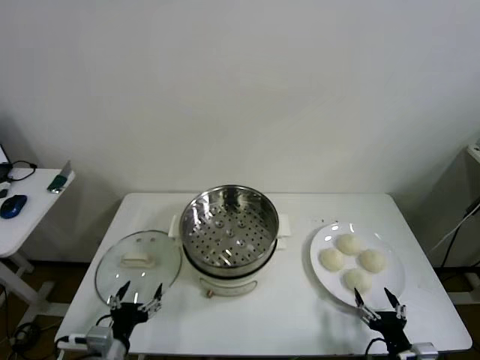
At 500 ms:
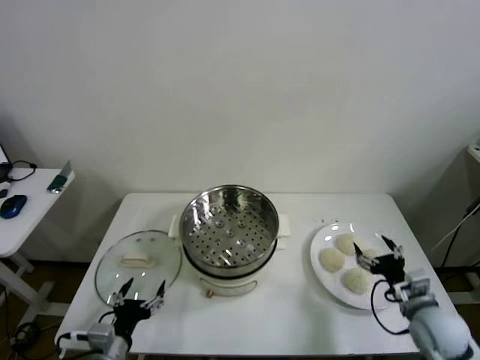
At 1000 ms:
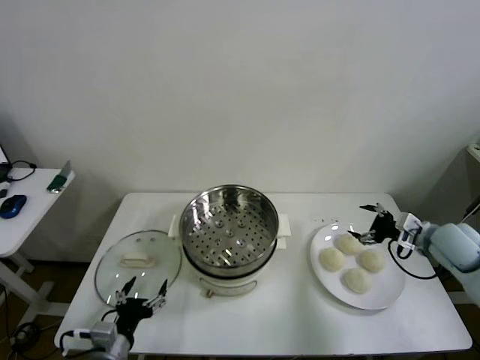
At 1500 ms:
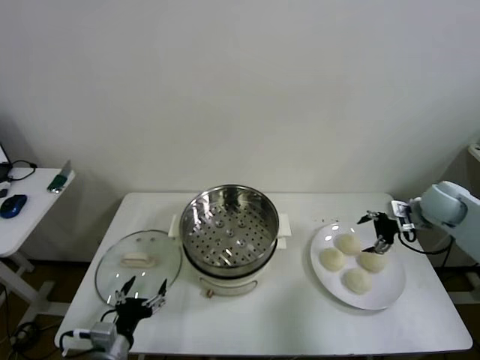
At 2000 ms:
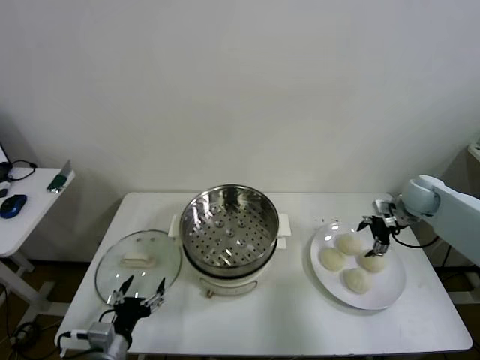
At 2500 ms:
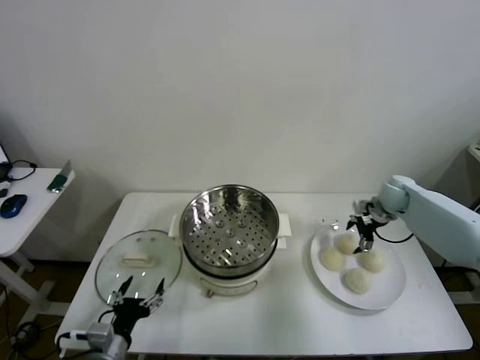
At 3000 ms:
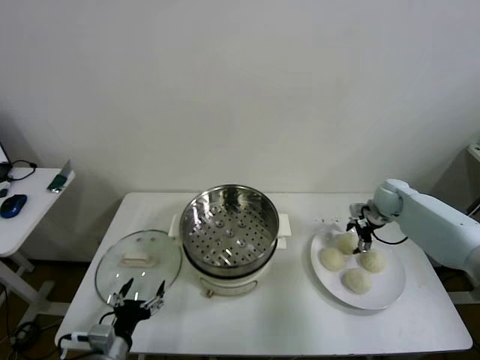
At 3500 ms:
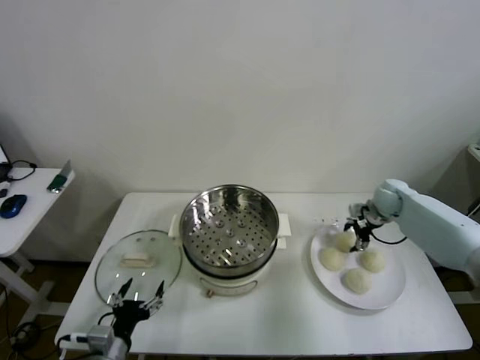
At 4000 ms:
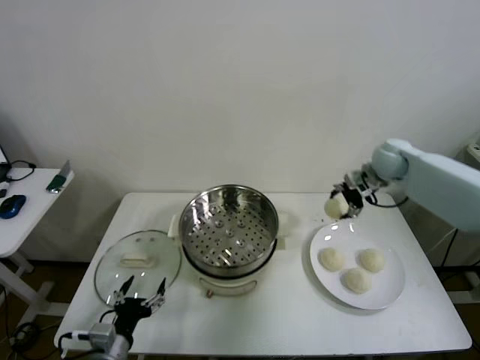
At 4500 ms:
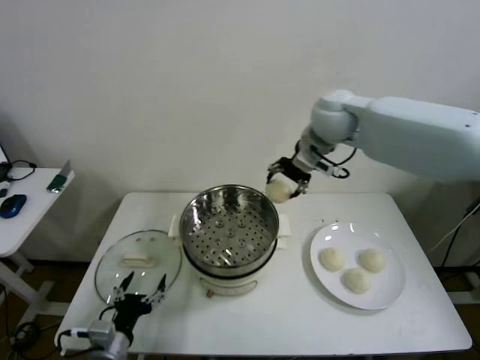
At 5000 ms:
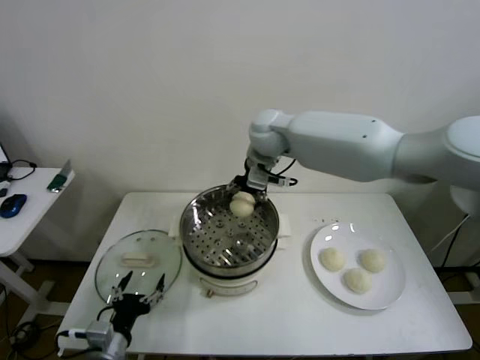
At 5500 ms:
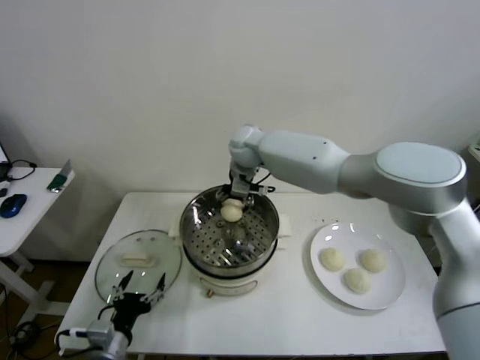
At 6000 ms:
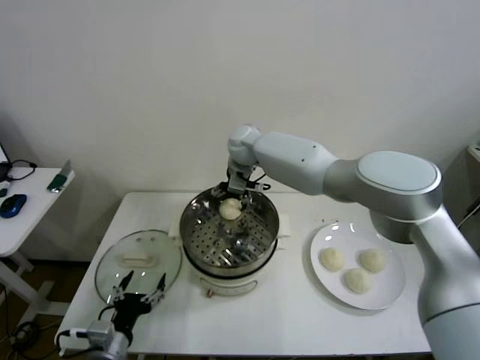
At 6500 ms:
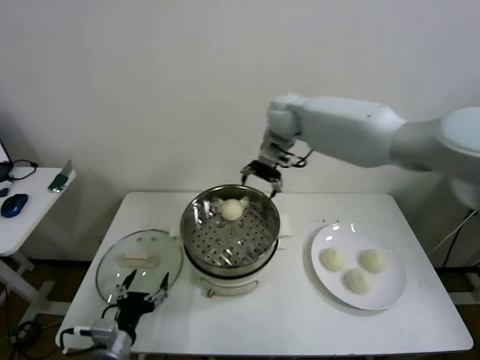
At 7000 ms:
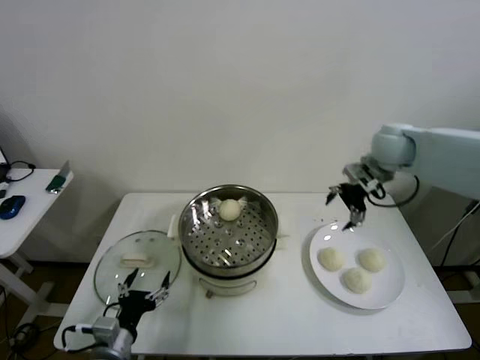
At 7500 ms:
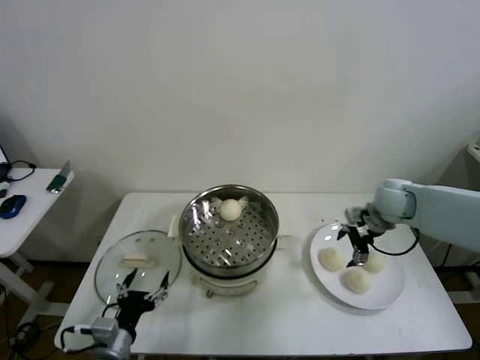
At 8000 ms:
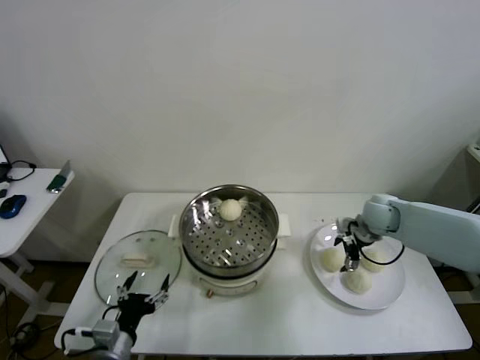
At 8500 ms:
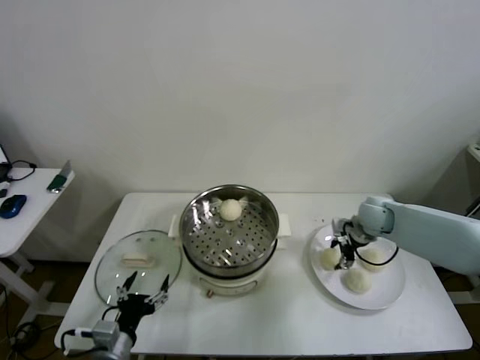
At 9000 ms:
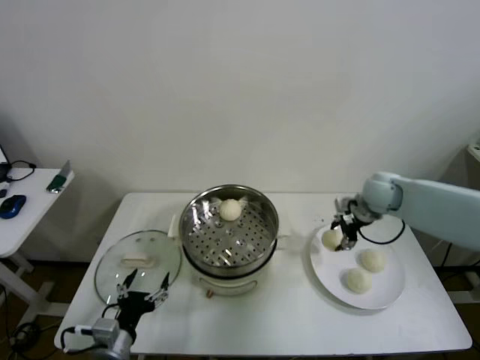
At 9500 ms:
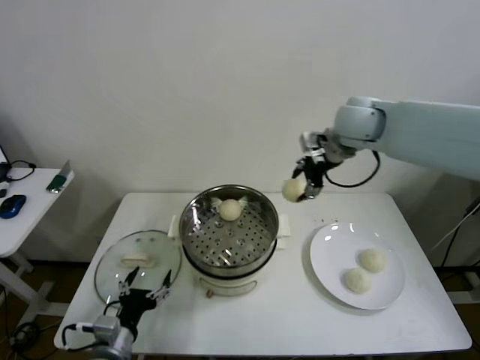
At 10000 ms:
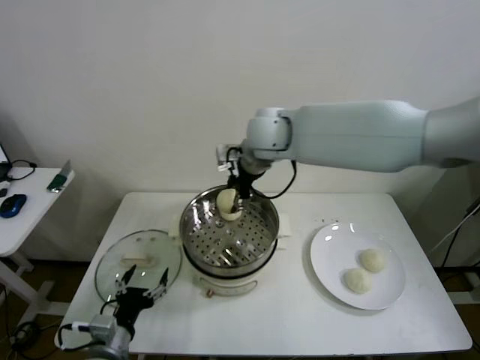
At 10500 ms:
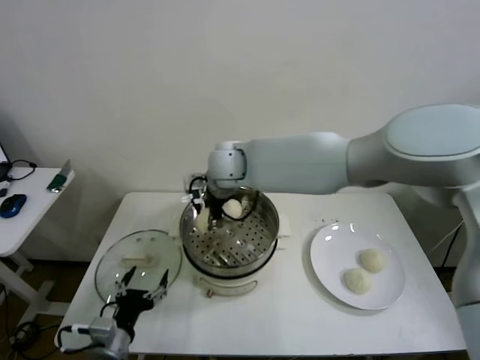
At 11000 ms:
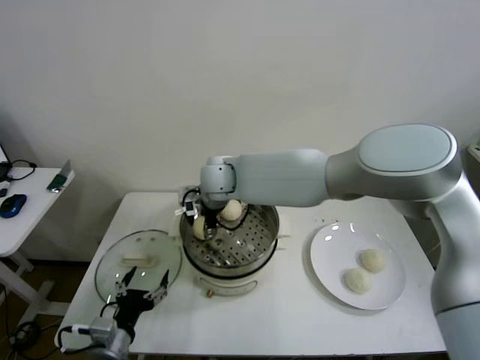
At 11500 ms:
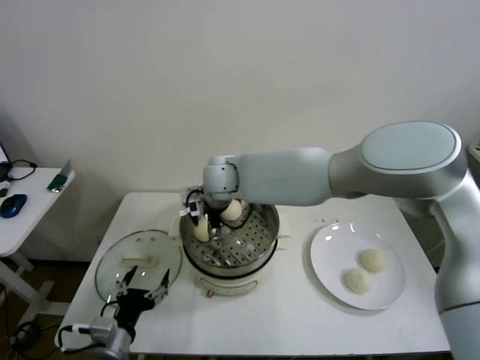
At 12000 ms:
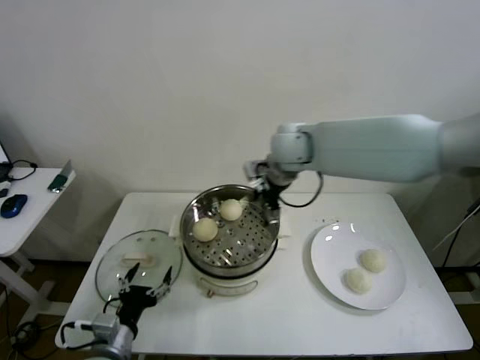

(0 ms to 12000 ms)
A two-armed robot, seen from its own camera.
Step, 0 ms - 3000 ms: Grasp the baozi in the plate with right gripper.
Step, 3500 ms - 6000 ms: Place the baozi on the steamer with right gripper.
Step, 6500 ms - 8000 ms: Grasp the baozi in the plate with right gripper.
Step, 8500 ms - 11500 ms: Place the baozi on the steamer with right gripper.
2000 ms - 4000 ms: The right gripper moves upward, to the left and forward, about 15 cm, and closes up.
4000 ms - 6000 ms: The right gripper shifts some 35 cm to the left, and opens up.
6000 ms - 8000 ms: The right gripper moves to the right, some 35 cm.
8000 ms - 10000 ms: The right gripper goes approximately 40 cm to the left and upward, and closes its fingers.
10000 ms - 12000 ms: The right gripper shifts approximately 5 cm to the right, and opens its fingers.

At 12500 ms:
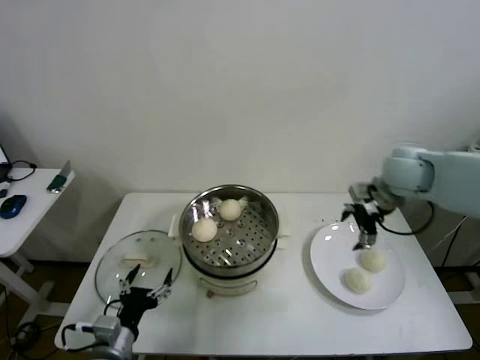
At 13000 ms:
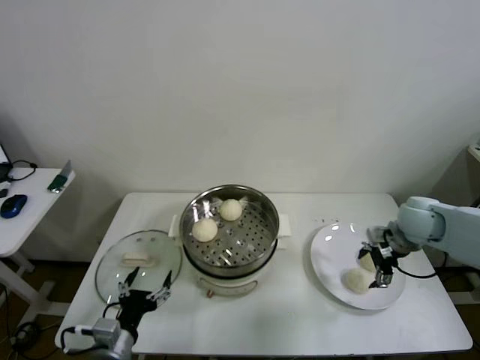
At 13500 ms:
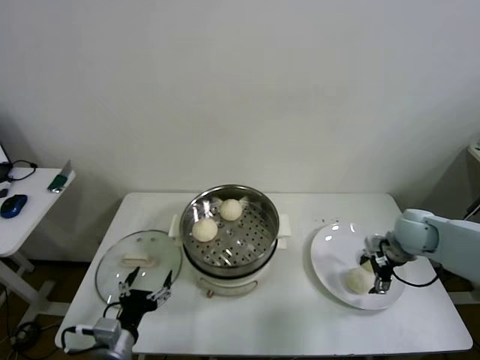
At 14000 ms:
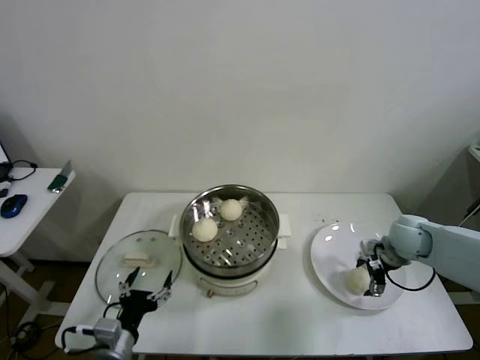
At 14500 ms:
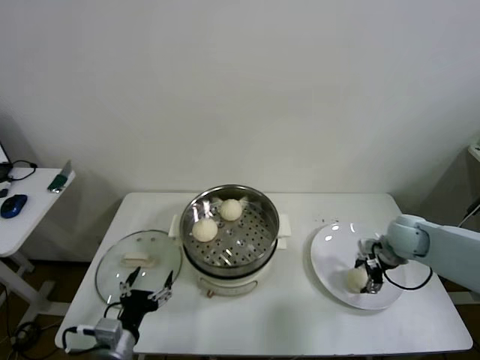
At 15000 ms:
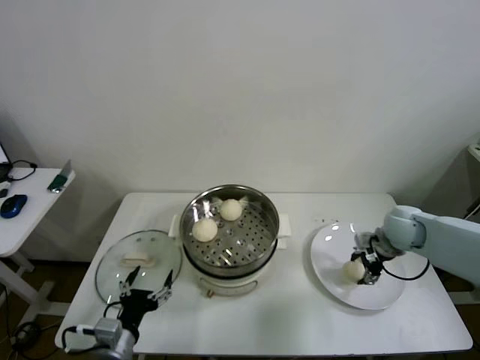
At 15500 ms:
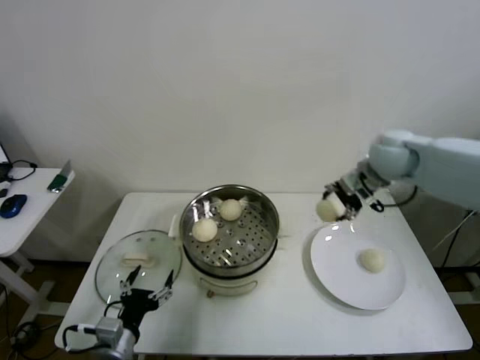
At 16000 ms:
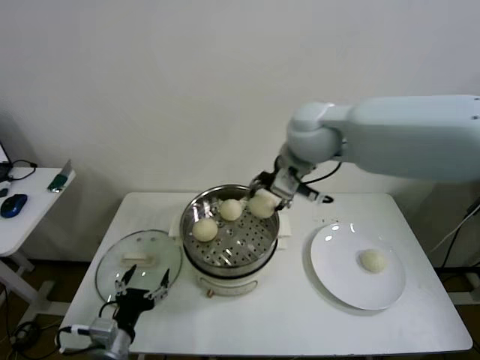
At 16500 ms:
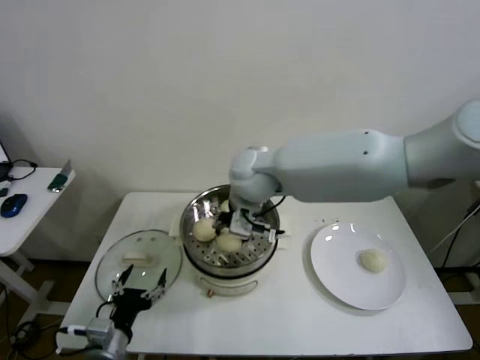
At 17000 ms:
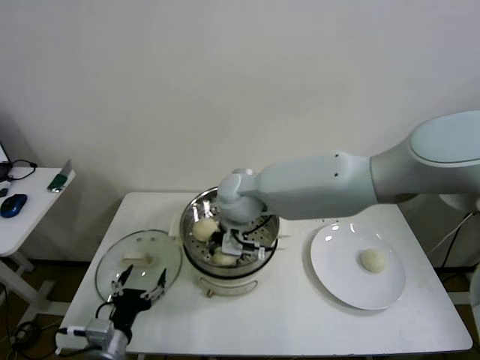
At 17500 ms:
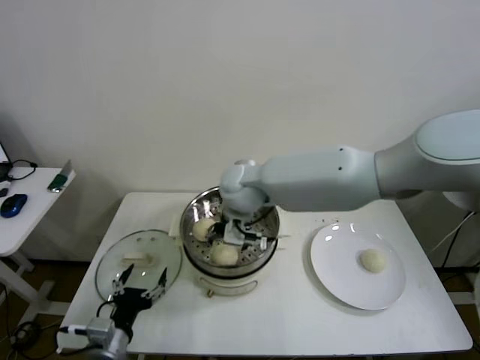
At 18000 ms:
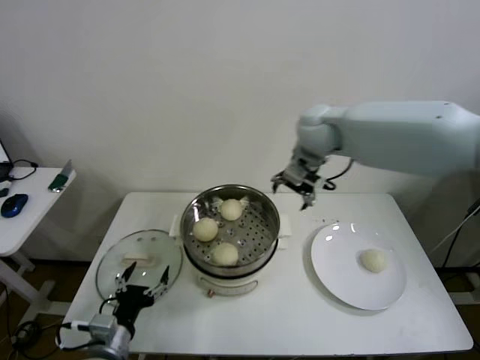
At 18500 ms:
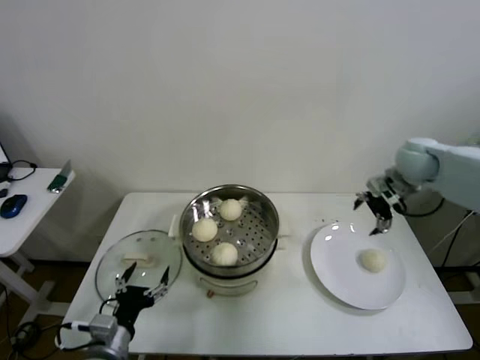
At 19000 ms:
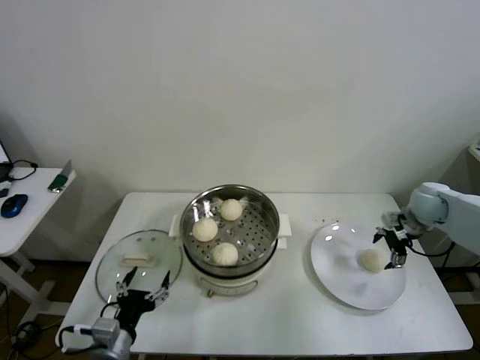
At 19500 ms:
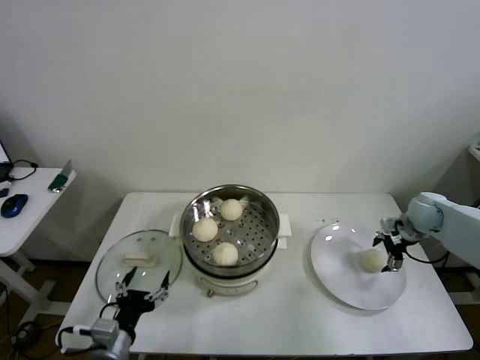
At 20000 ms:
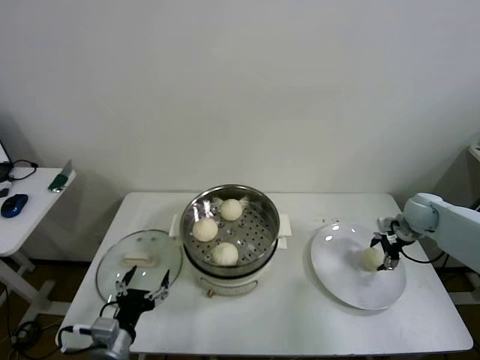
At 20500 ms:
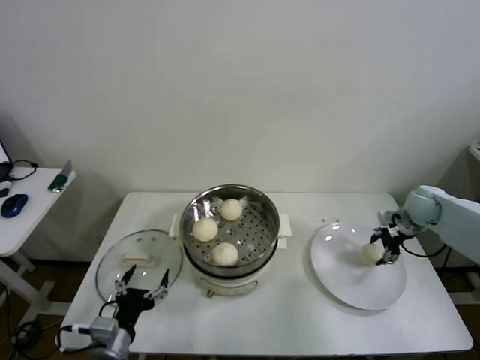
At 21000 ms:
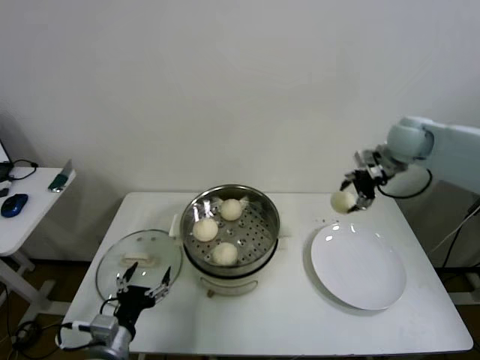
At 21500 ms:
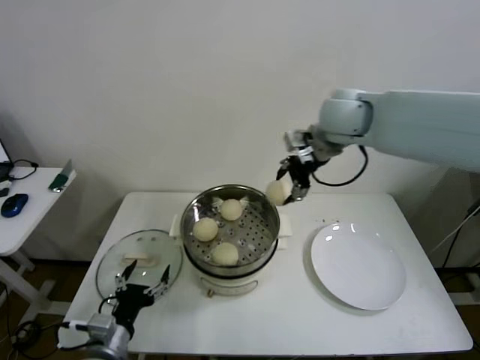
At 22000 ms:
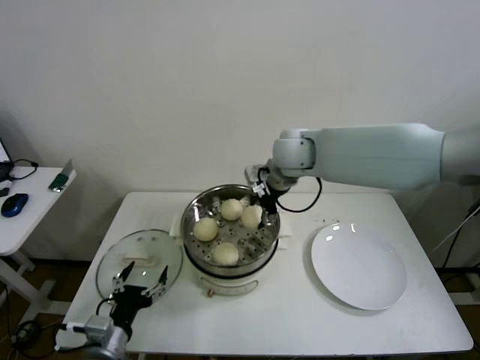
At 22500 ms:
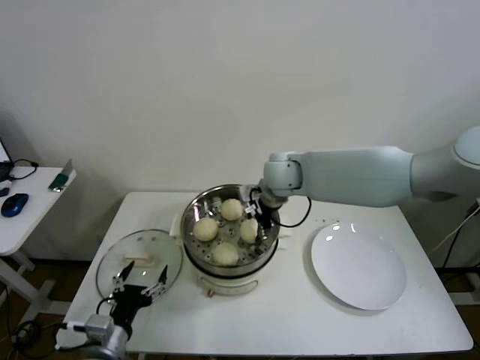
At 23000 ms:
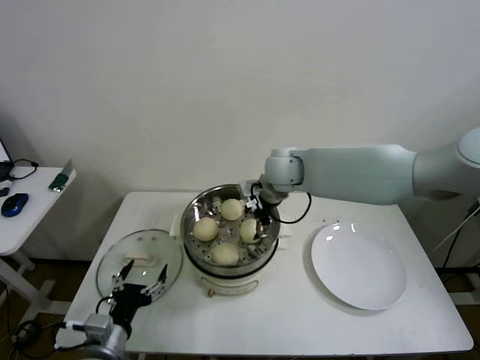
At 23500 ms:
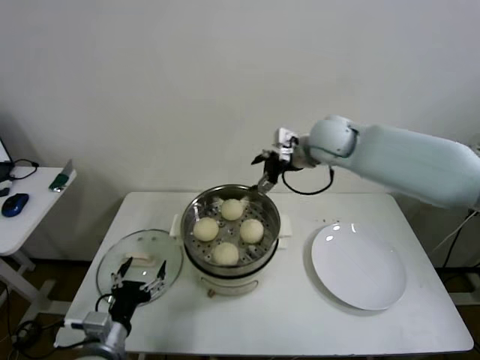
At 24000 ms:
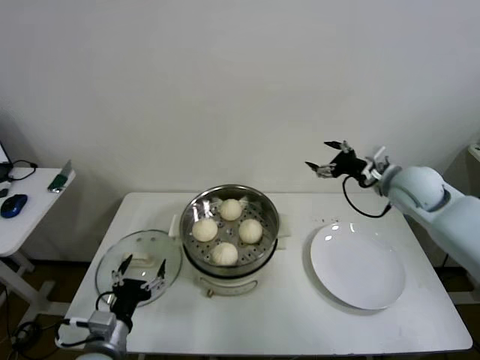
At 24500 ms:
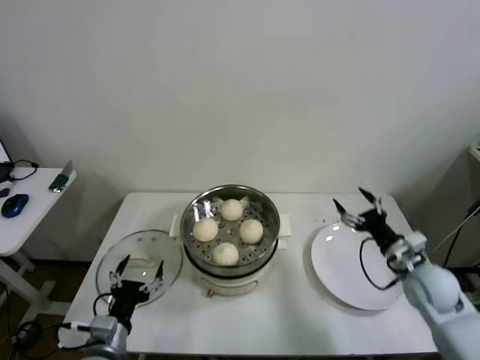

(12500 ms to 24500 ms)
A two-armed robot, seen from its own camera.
Step, 12500 ms - 14500 ms: Grasp the baozi in the plate with right gripper.
Step, 15000 ms - 17500 ms: Place the baozi on the steamer with right gripper.
Step, 18000 ms - 20000 ms: Grasp the baozi in the plate with right gripper.
Step, 20500 ms - 22500 ms: Place the baozi on the steamer with right gripper.
12500 ms - 14500 ms: The right gripper goes some 15 cm downward, and closes up.
14500 ms - 16500 ms: The right gripper goes approximately 40 cm to the left and upward.
16500 ms - 18500 ms: The right gripper heads to the right, covering about 35 cm, and opens up.
18500 ms - 20500 ms: The right gripper moves downward and to the right, some 15 cm, and closes its fingers.
20500 ms - 22500 ms: The right gripper heads to the left, covering roughly 35 cm.
22500 ms - 24500 ms: The right gripper heads to the right, backward and downward, covering approximately 40 cm, and opens up.

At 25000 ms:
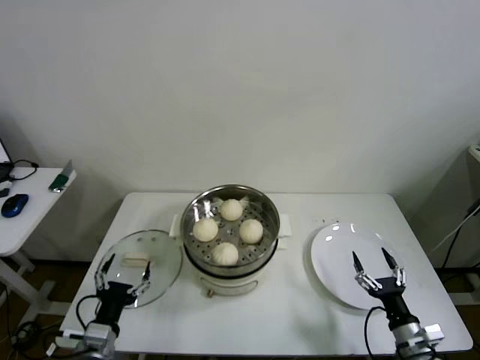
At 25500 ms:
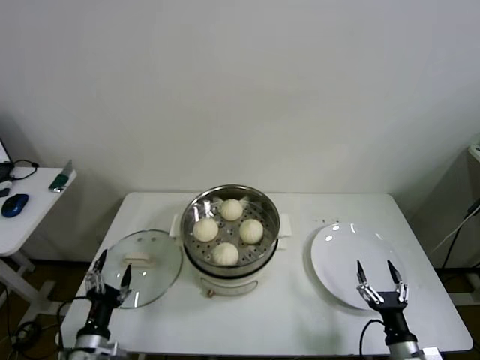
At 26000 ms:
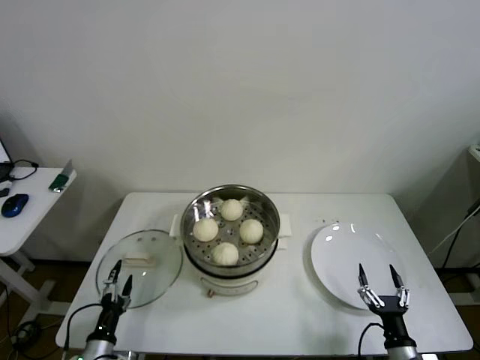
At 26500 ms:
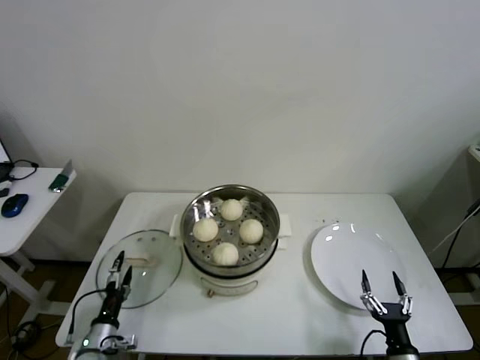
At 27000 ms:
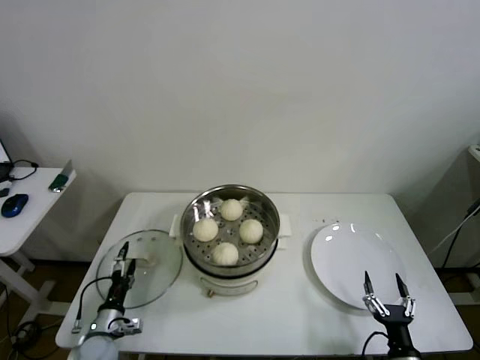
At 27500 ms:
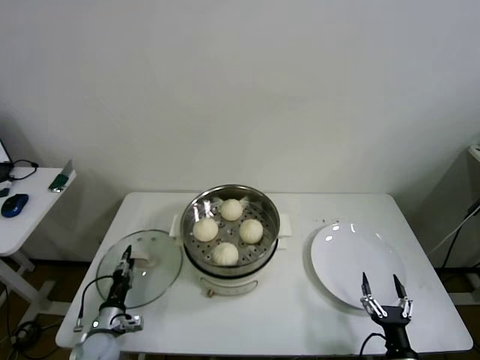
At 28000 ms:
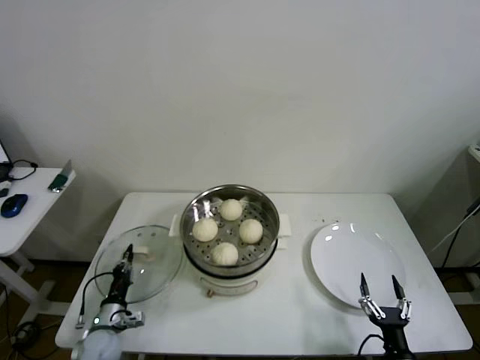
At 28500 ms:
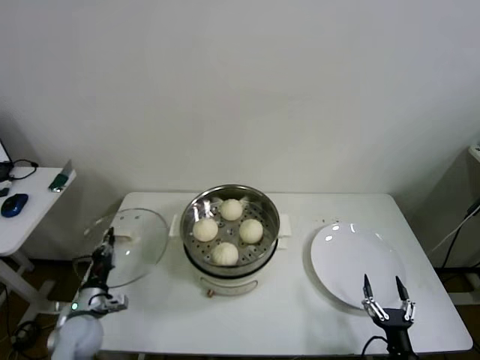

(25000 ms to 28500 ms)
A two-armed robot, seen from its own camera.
Step, 25000 ms - 27500 ms: Grasp the pot lid with left gripper.
25000 ms - 27000 ms: The right gripper is displaced backward by some 5 cm. Meanwhile the left gripper shifts some 15 cm downward, forward and to the left.
27000 ms - 28500 ms: The left gripper heads upward, covering about 5 cm, and closes its fingers.
